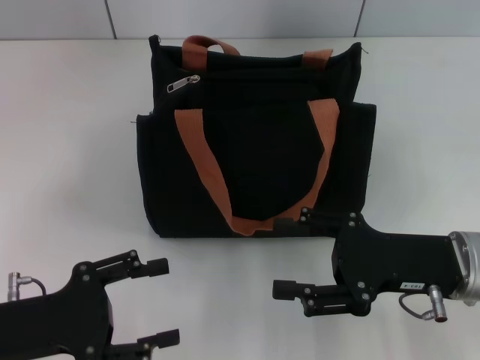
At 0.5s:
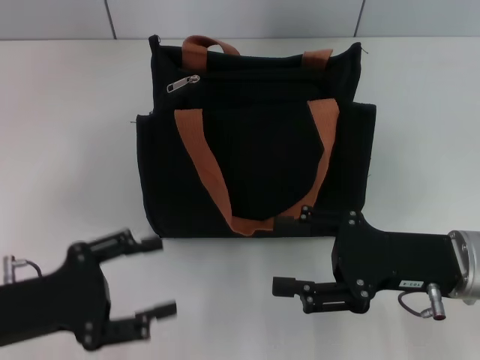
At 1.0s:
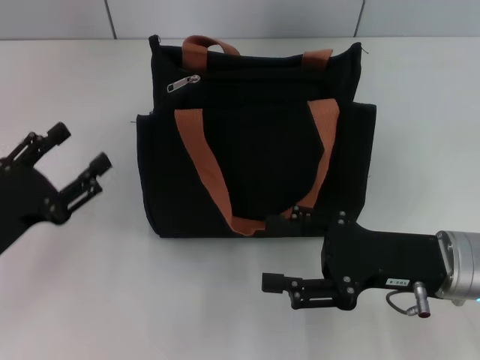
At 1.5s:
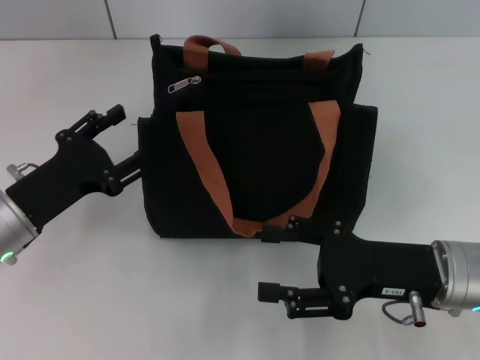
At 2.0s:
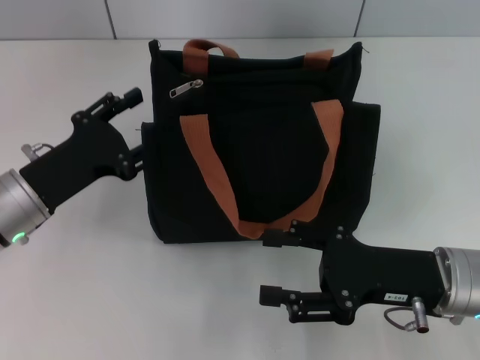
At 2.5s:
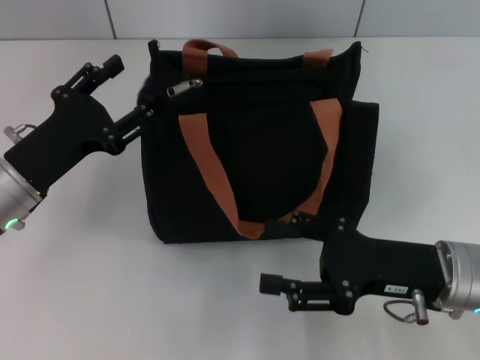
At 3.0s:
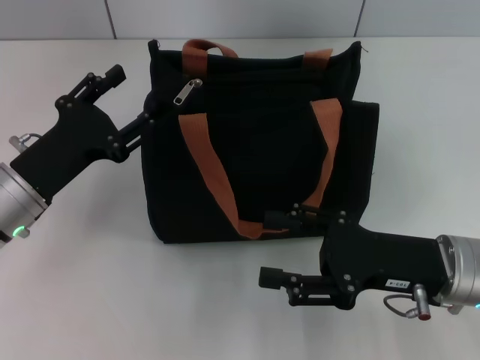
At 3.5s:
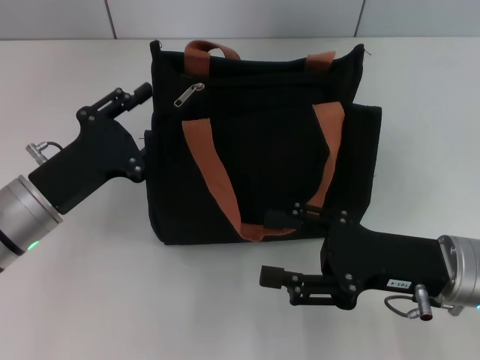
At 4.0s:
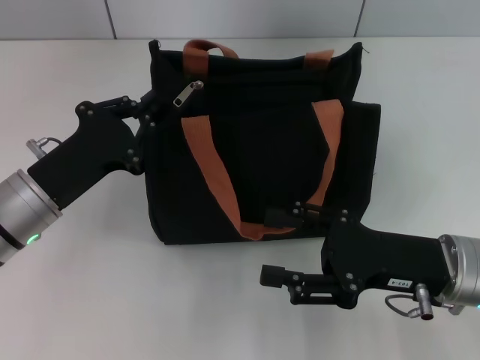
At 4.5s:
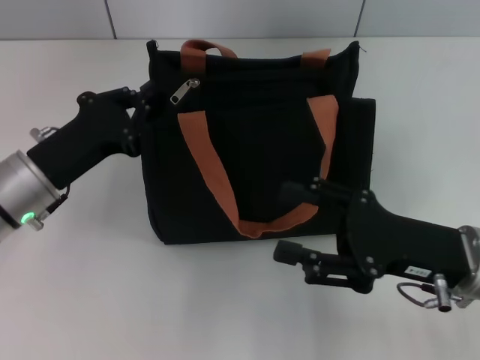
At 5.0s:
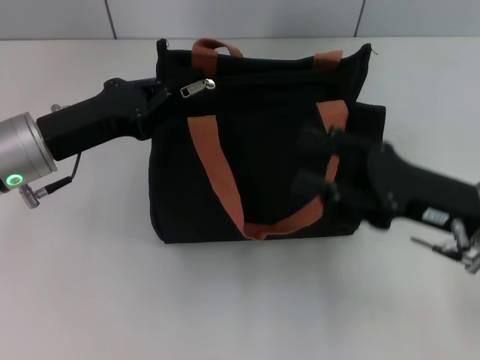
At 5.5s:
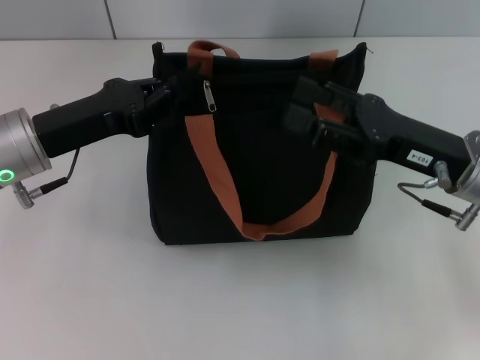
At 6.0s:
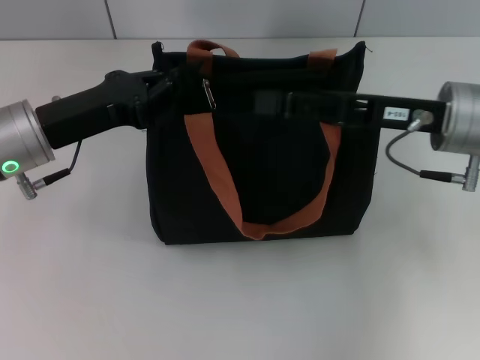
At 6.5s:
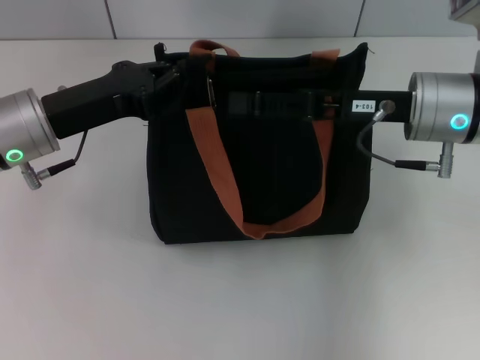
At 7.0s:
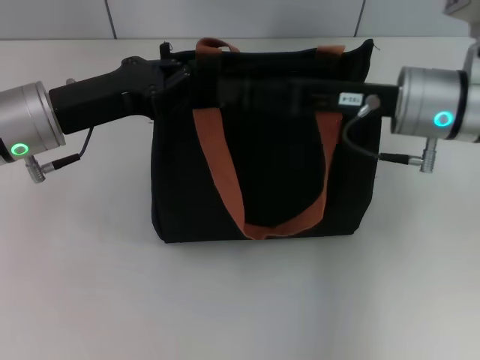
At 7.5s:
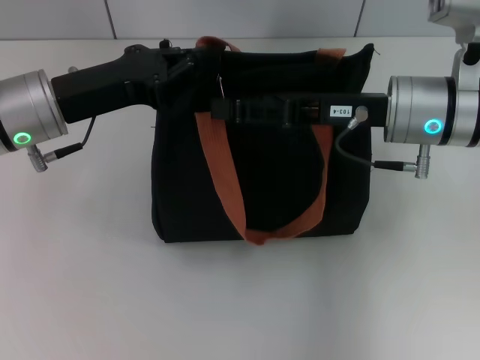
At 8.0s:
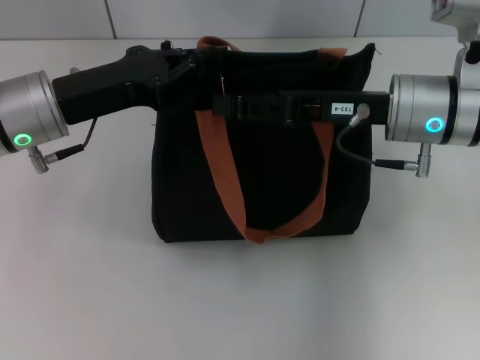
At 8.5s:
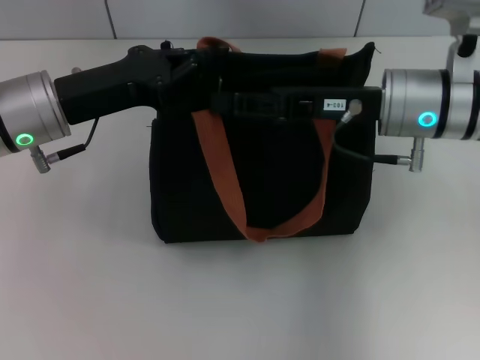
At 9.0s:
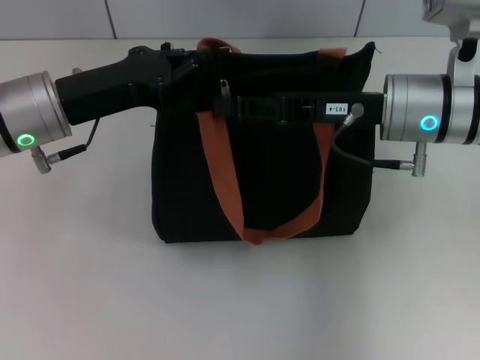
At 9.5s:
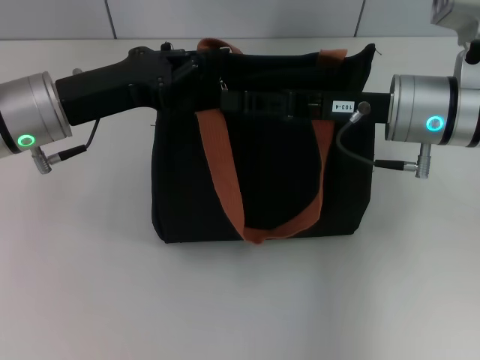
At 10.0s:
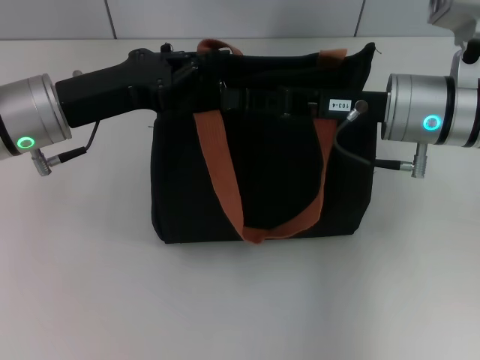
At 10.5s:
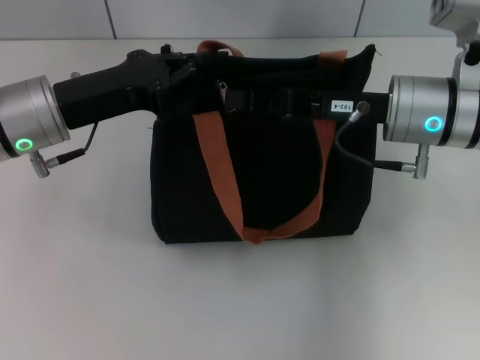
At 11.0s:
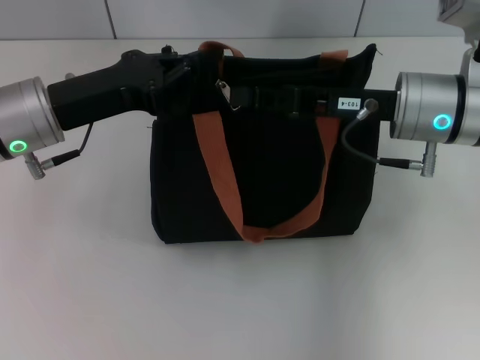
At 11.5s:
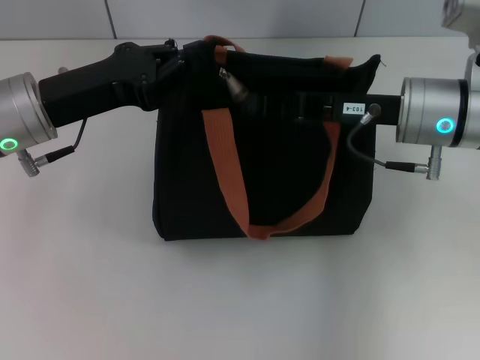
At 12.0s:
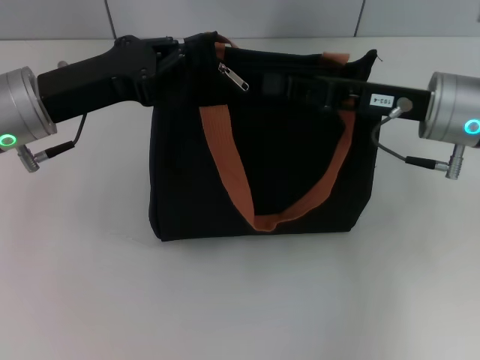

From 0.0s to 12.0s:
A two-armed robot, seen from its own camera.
From 0.0s to 2.0s: The left gripper heads forward, covering roughly 10 cm.
From 2.0s to 4.0s: The left gripper closes.
From 4.0s to 6.0s: The left gripper goes some 10 cm upward and forward, and closes its fingers. Meanwhile the right gripper goes approximately 15 cm forward and upward.
From 6.0s to 8.0s: There are only small adjustments of the grippers.
From 8.0s to 10.0s: The right gripper closes its fingers.
From 10.0s to 12.0s: The grippers stay close to where they were, moving slightly.

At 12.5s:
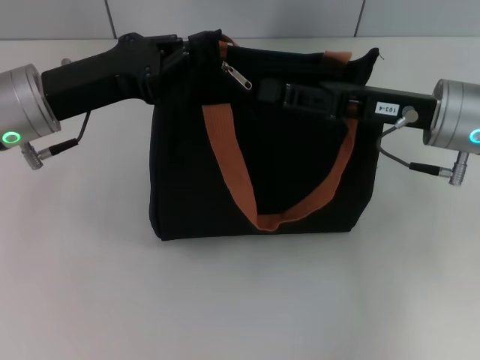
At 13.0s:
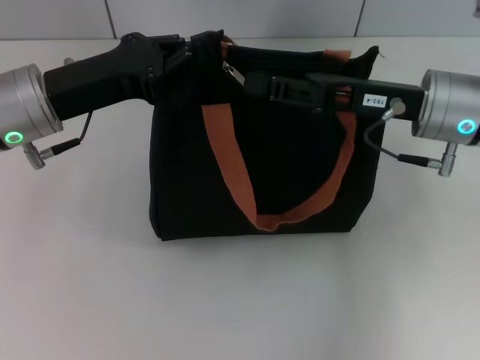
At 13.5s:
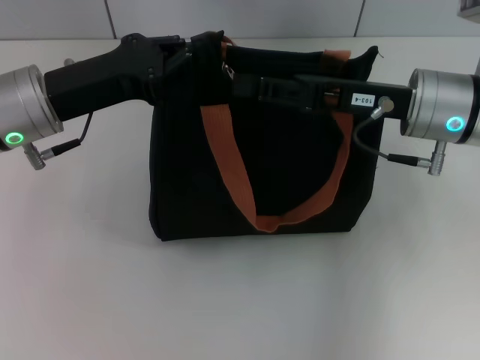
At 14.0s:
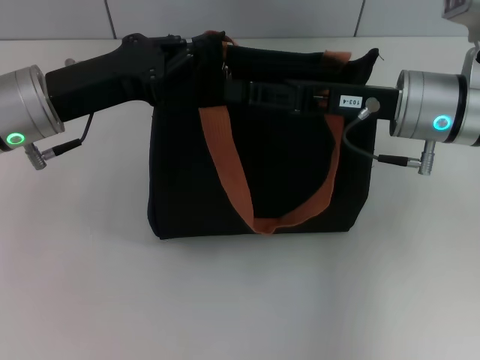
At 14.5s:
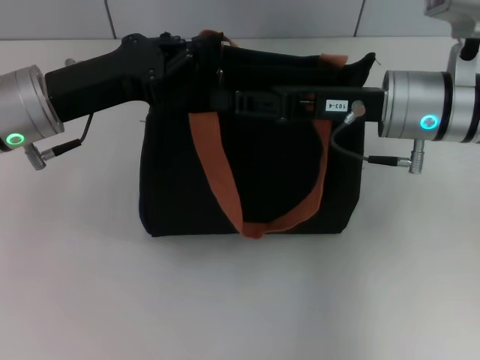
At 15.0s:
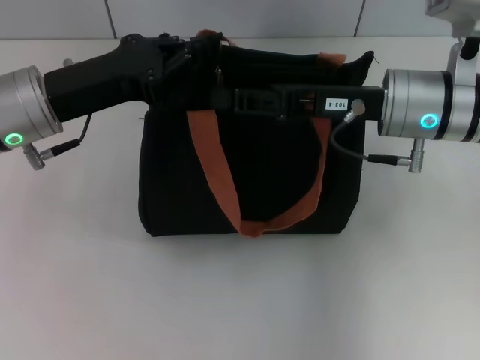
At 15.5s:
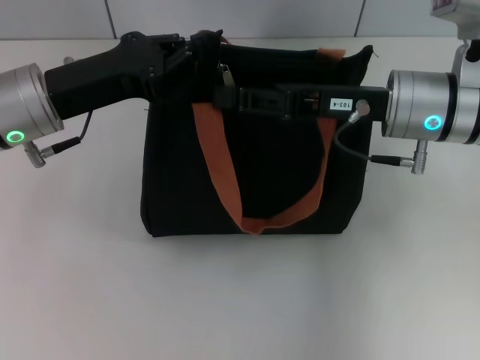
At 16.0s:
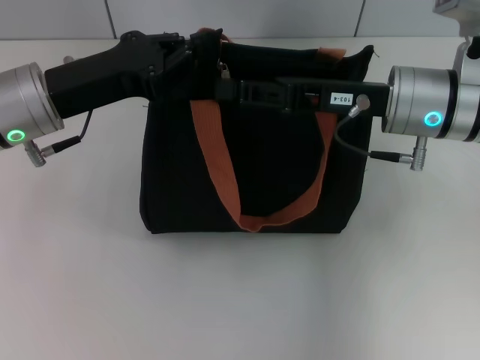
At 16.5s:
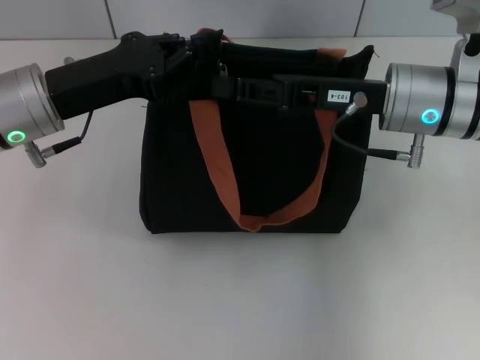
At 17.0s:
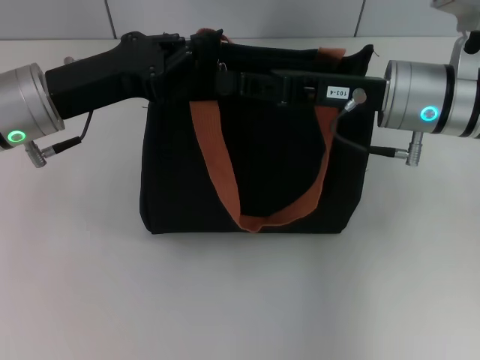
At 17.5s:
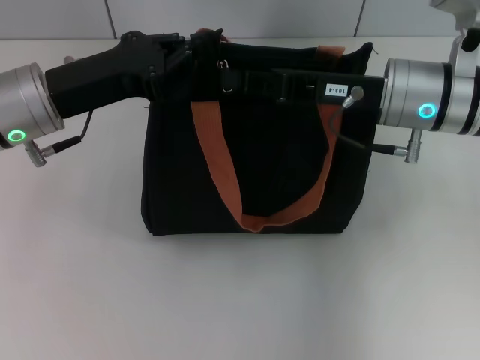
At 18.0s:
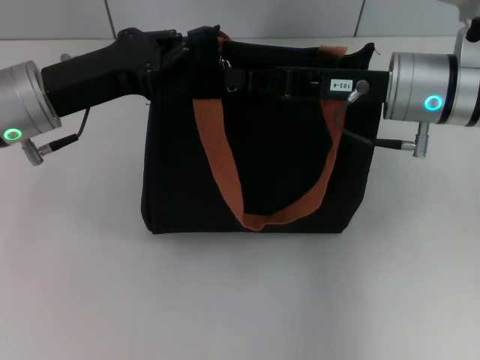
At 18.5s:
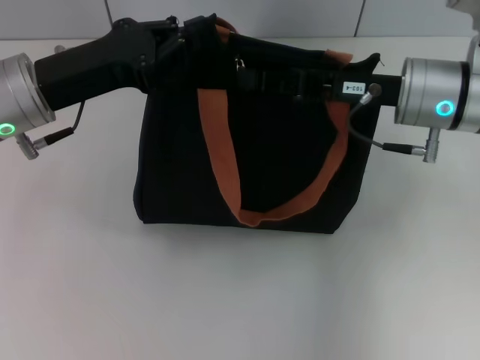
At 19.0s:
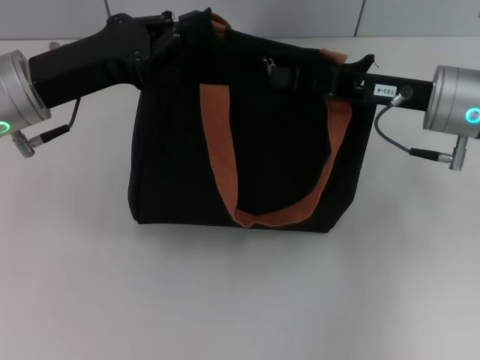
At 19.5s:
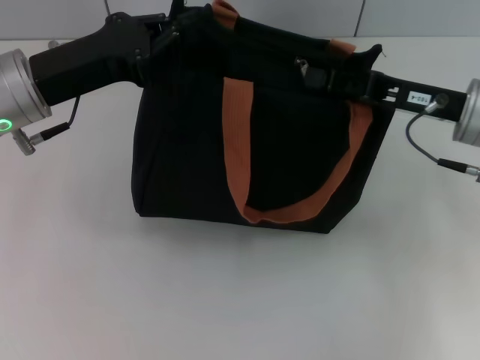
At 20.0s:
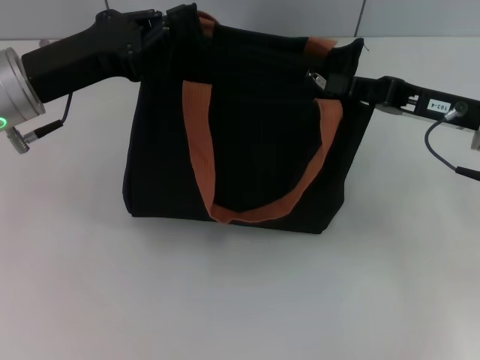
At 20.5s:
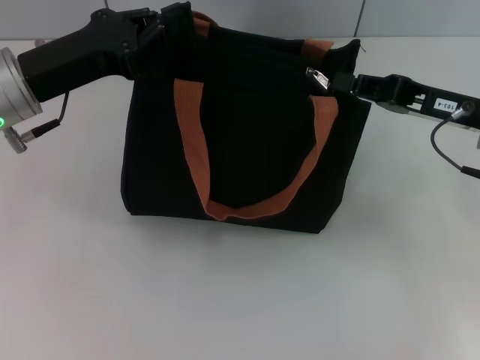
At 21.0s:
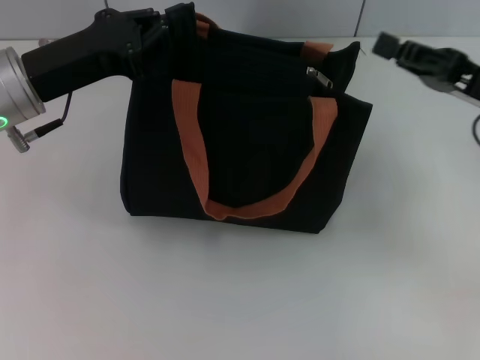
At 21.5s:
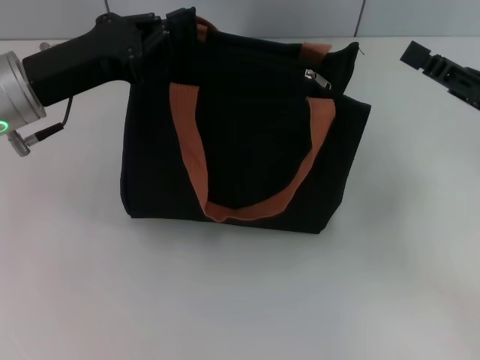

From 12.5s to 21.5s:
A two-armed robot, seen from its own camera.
Step, from 12.5s to 20.5s: Pull up the zipper with your right hand.
From 12.5s to 14.5s: The grippers make only small movements.
From 14.5s to 17.0s: Both grippers stay about where they are.
From 17.0s to 19.5s: The right gripper heads to the right, covering about 5 cm.
From 19.5s to 21.5s: The right gripper is displaced to the right and backward by about 10 cm.

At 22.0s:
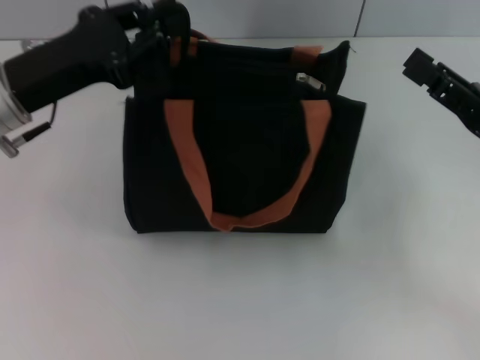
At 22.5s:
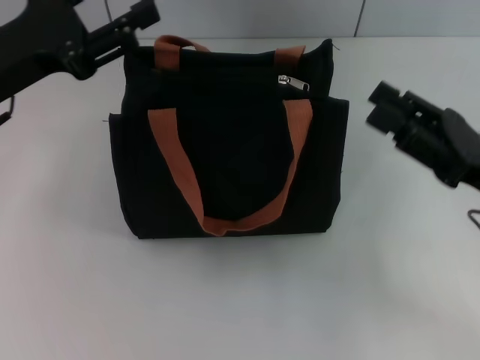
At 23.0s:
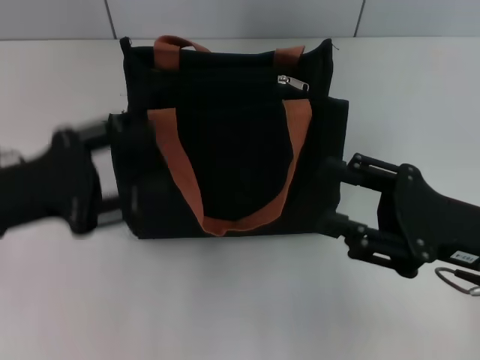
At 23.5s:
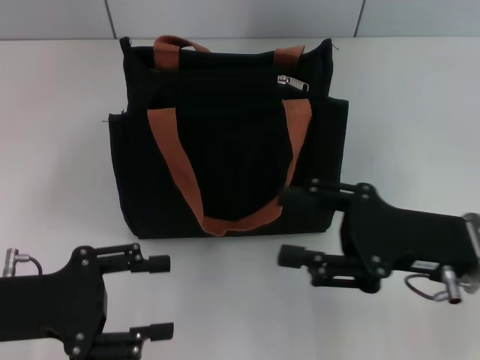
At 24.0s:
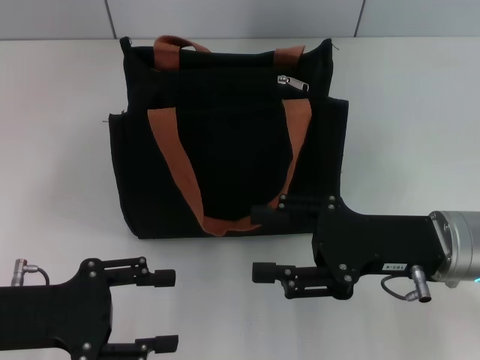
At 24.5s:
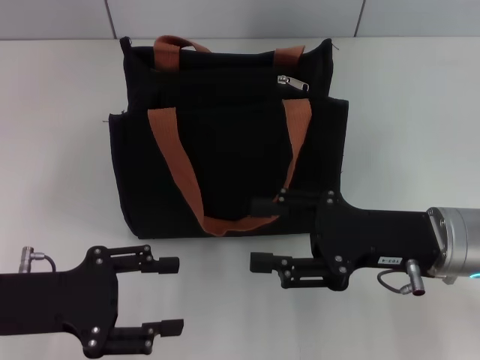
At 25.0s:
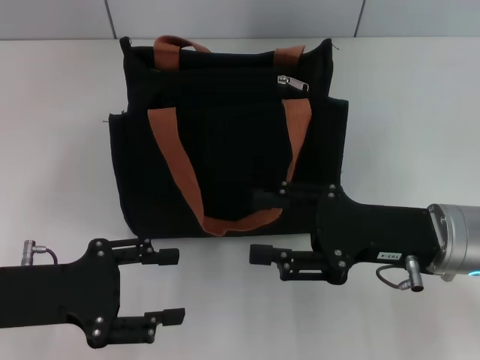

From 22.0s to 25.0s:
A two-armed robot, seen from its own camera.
From 22.0s to 23.5s: The right gripper shifts about 5 cm to the left, and opens. The left gripper shifts approximately 15 cm backward and downward, and opens up.
From 23.5s to 25.0s: The grippers make only small movements.

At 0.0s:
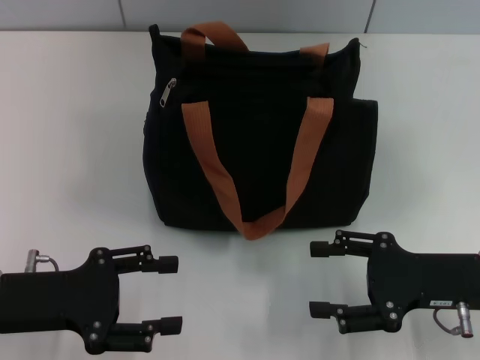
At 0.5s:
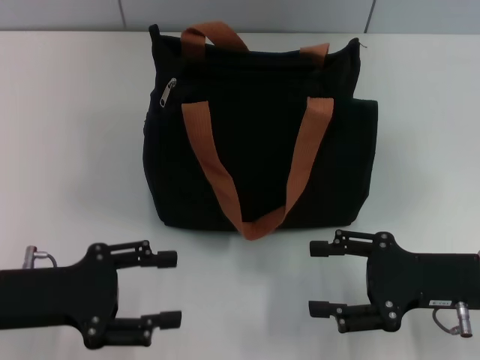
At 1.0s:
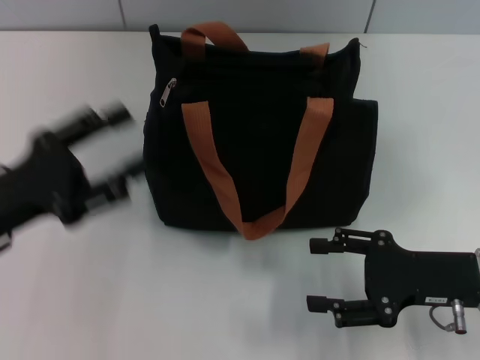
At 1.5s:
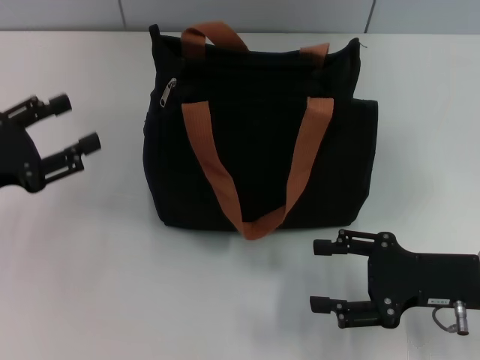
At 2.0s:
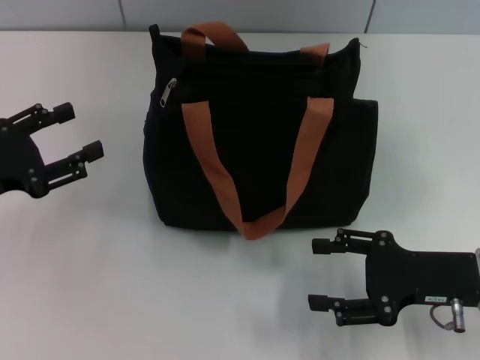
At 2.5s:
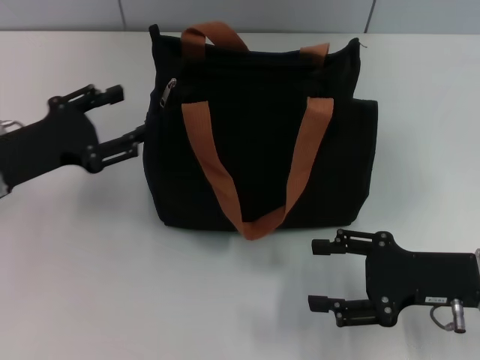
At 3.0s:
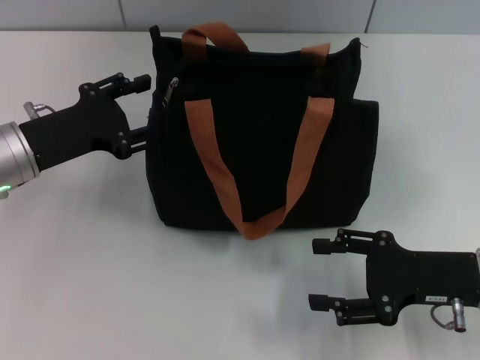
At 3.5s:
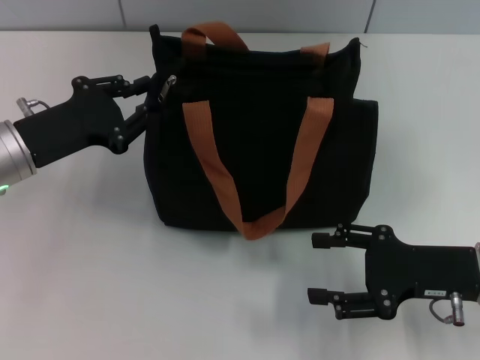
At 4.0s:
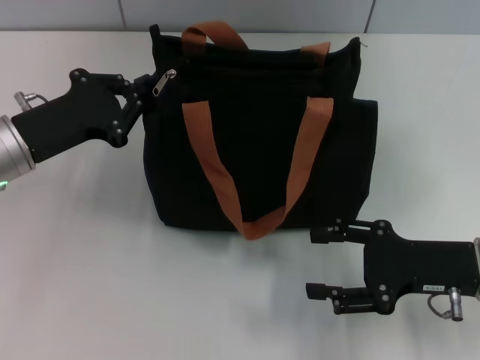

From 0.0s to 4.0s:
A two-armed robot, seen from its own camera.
From 0.0s to 2.0s: The left gripper heads to the left, covering approximately 5 cm.
From 2.0s to 4.0s: The left gripper heads to the right and forward, covering some 10 cm, and closes up.
